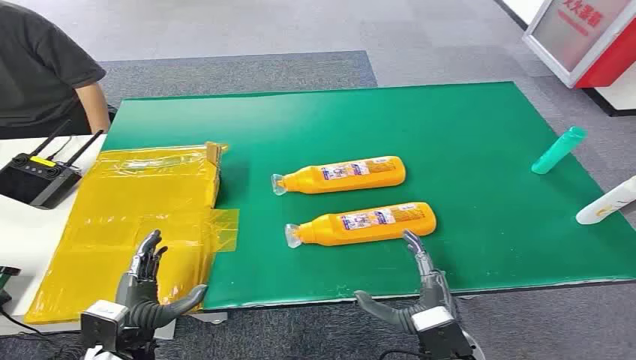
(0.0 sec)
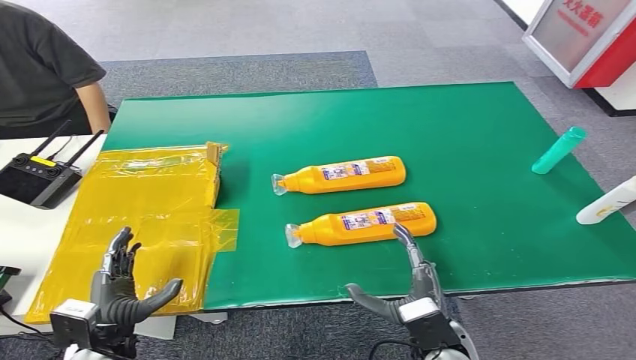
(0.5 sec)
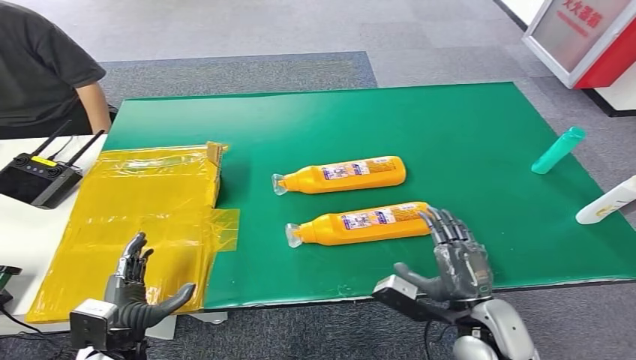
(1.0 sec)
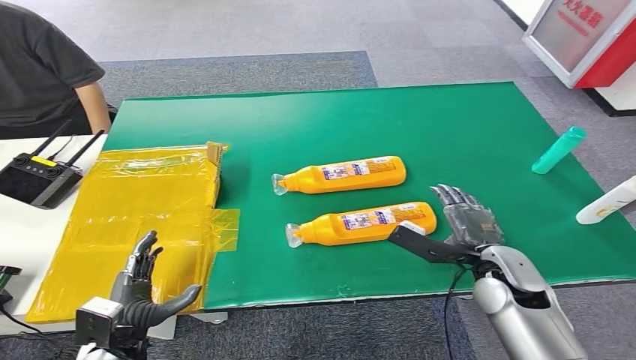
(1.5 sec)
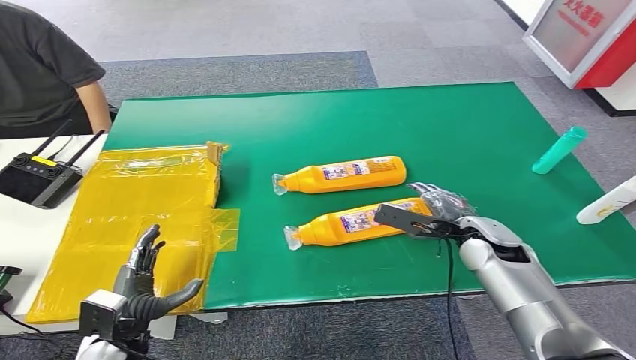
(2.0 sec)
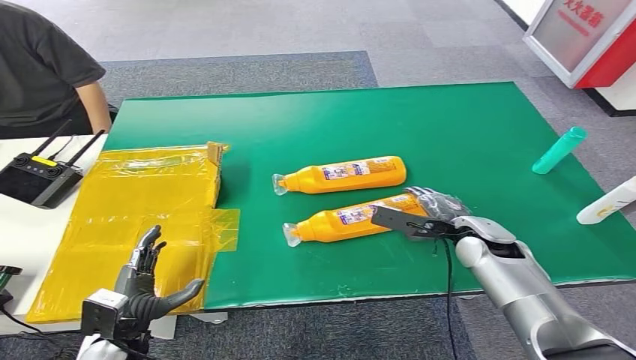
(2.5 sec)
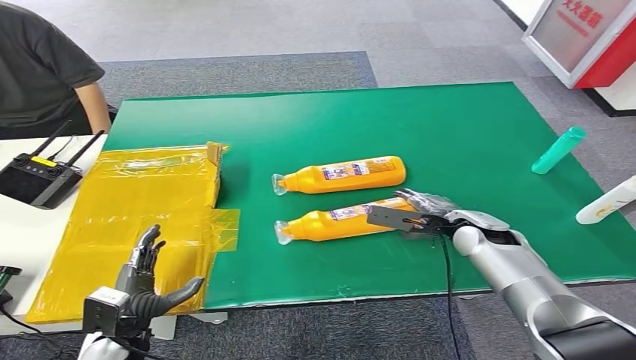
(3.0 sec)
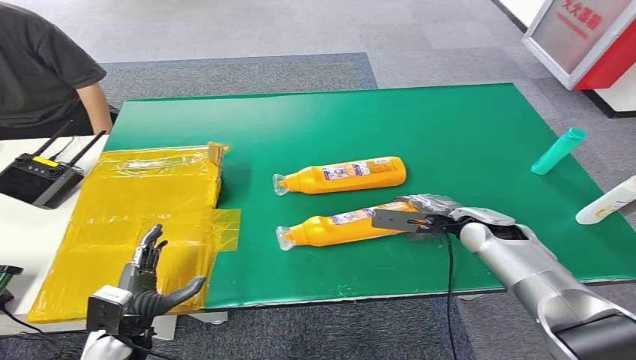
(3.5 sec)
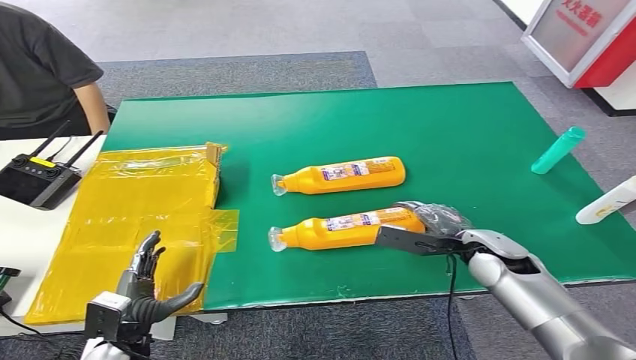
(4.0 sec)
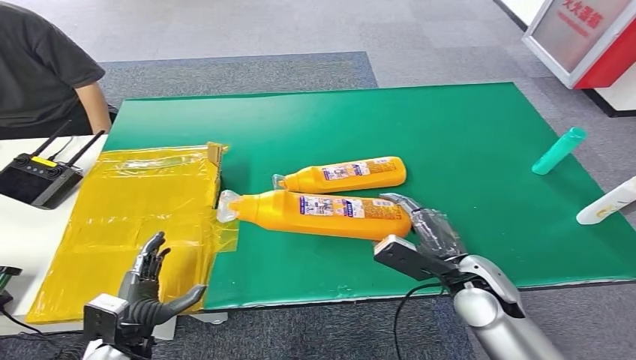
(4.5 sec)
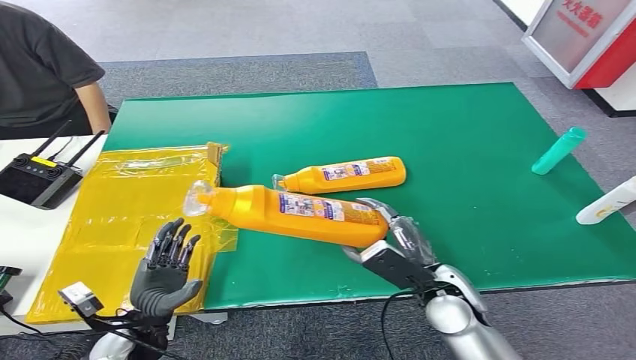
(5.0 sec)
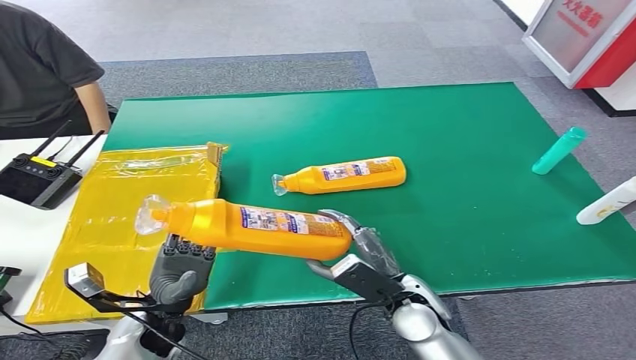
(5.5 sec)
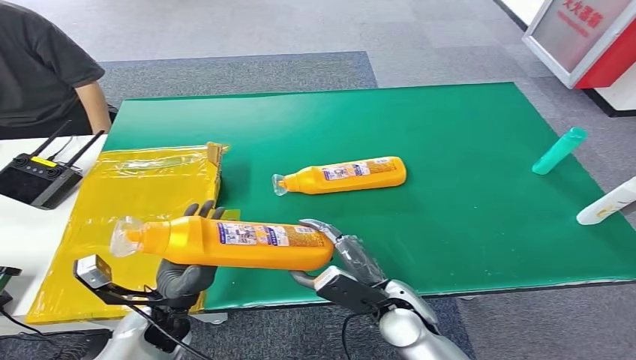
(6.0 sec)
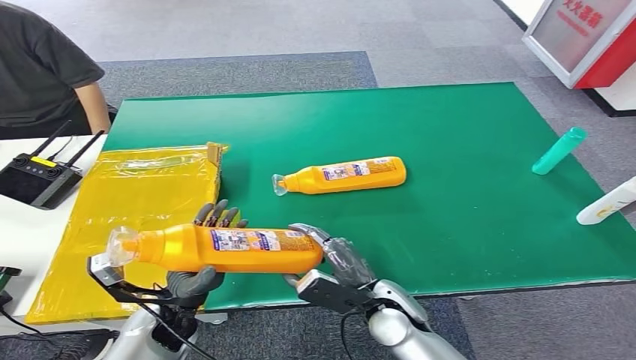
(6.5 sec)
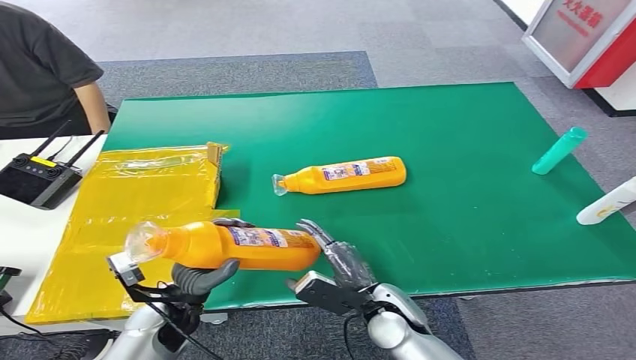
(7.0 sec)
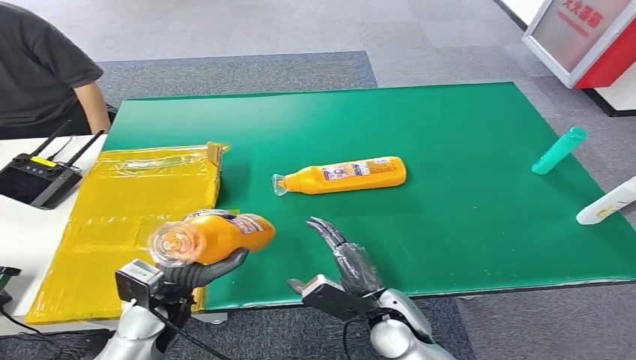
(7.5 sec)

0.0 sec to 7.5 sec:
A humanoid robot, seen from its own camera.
Step, 0.0 sec to 5.0 sec: Pick up the bottle from the table.
Step, 5.5 sec to 7.5 sec: Turn the bottle to the front side.
2.0 sec to 4.0 sec: There are only small adjustments of the hands.
4.0 sec to 5.5 sec: The right hand travels to the left and backward by some 15 cm. The left hand shifts some 5 cm to the right.

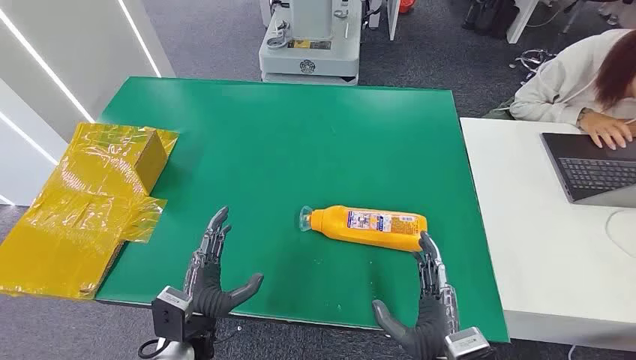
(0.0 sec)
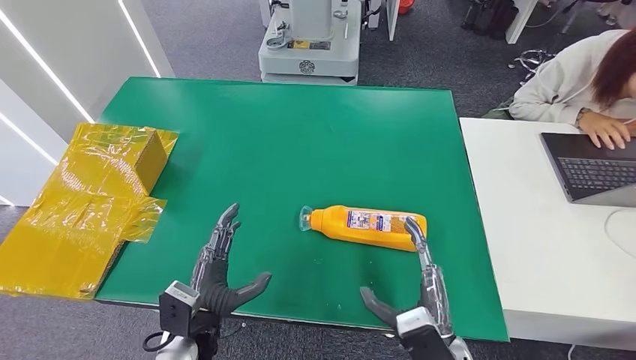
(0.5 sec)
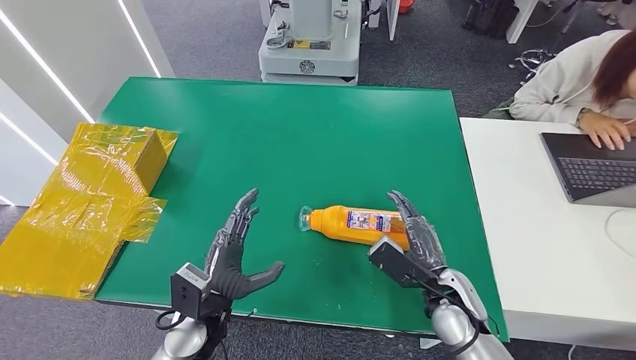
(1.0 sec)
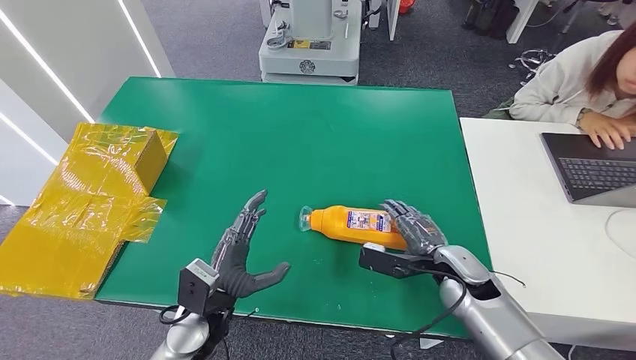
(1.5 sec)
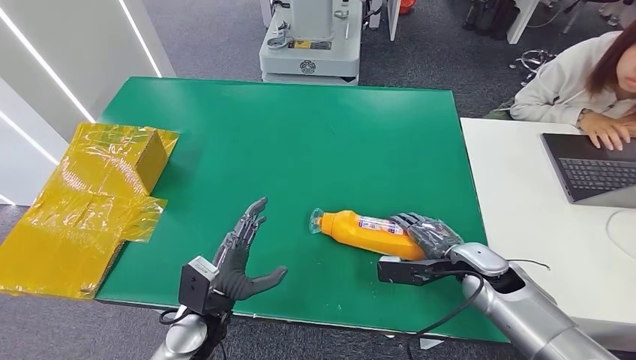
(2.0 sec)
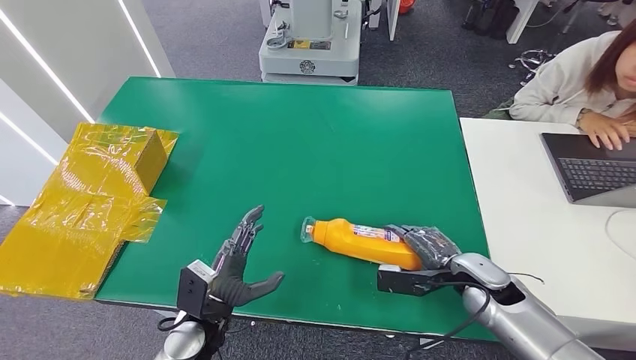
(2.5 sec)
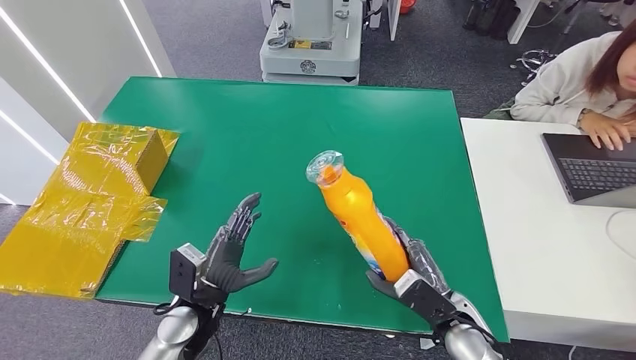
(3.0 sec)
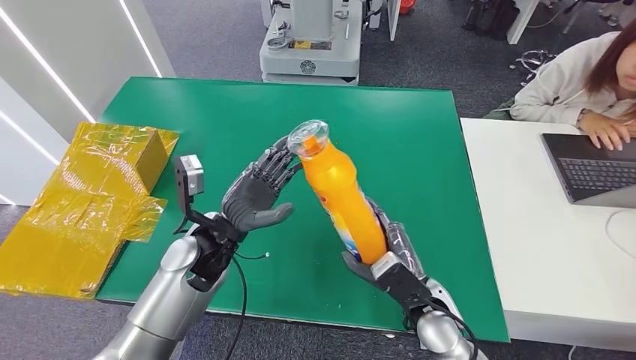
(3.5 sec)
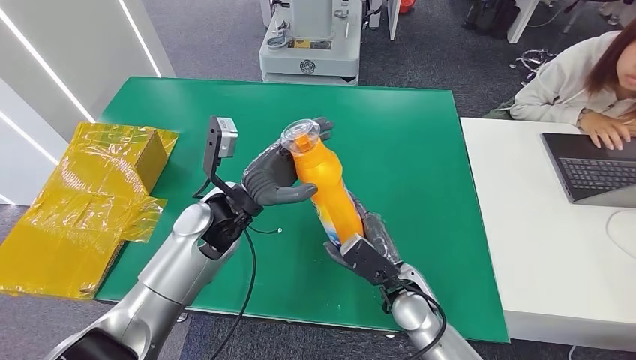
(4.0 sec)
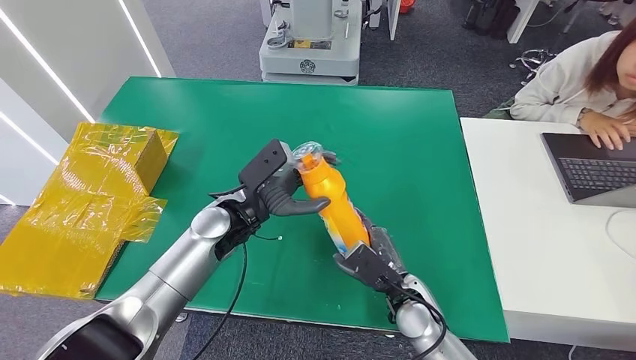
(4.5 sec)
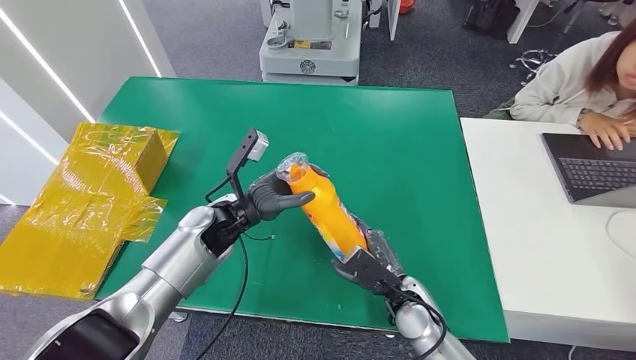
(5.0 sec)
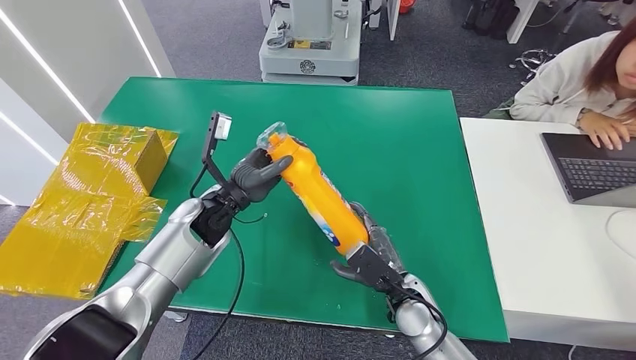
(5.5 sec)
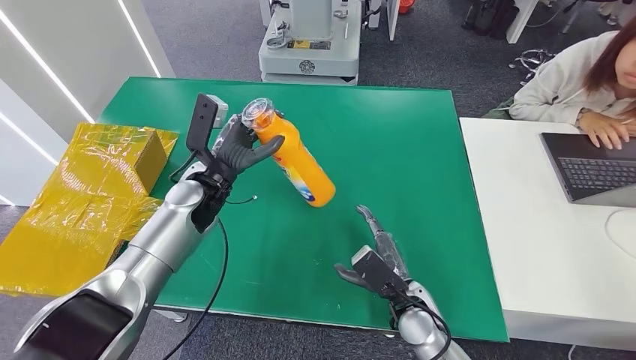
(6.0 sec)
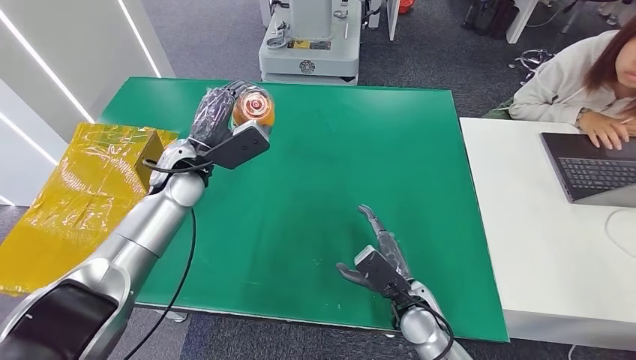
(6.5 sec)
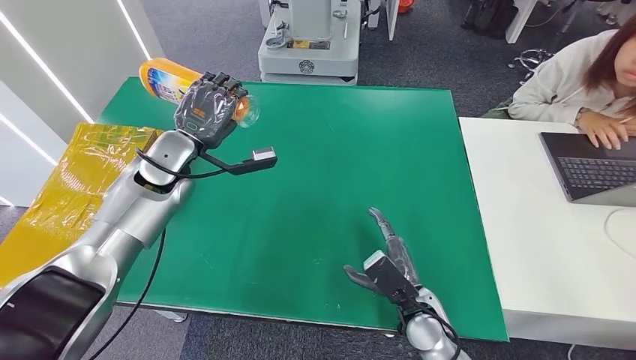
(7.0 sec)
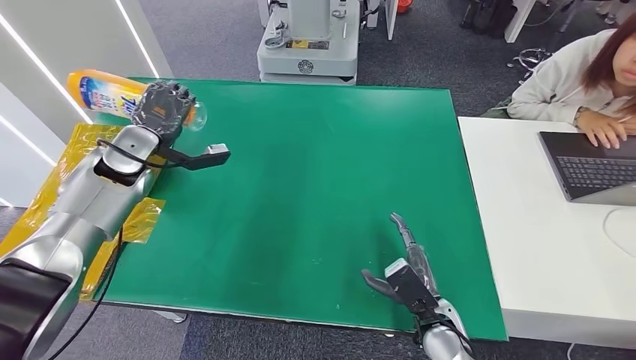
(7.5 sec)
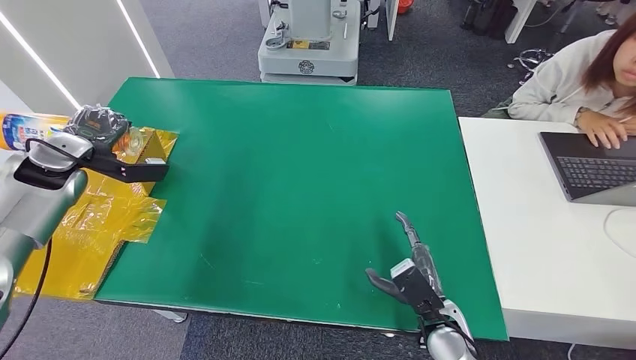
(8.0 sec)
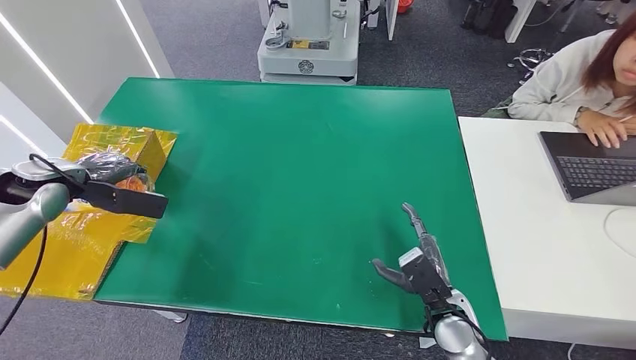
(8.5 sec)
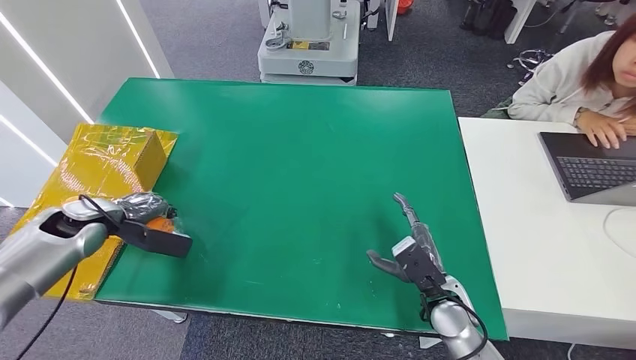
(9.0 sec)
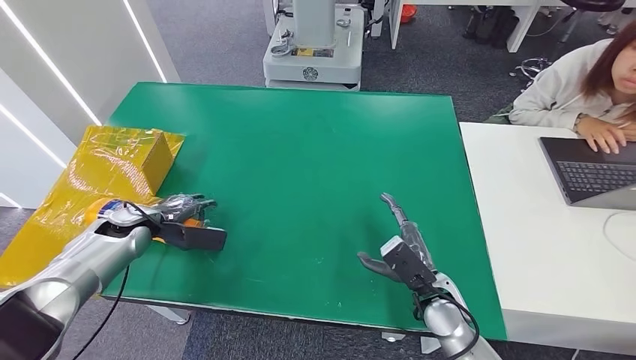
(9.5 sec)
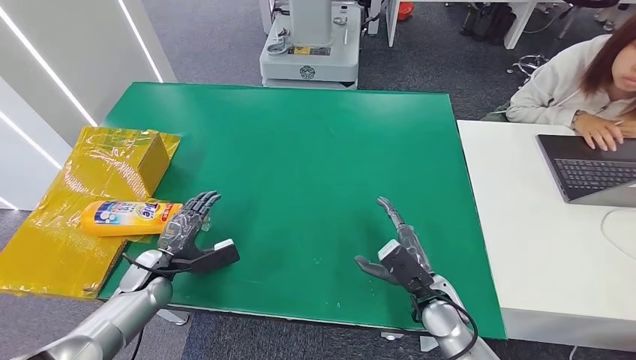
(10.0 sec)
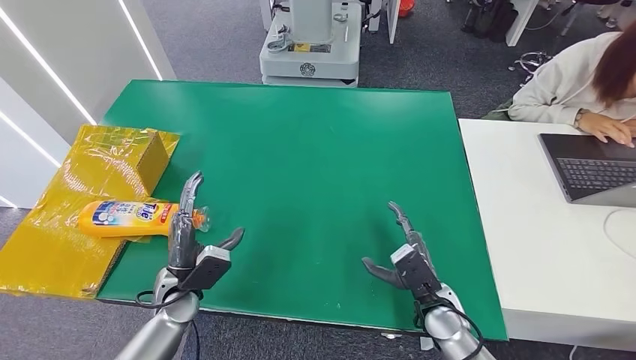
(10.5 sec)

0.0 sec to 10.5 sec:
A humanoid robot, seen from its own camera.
Step, 0.0 sec to 3.0 sec: Pick up the bottle from the table.
Step, 3.5 sec to 10.5 sec: Turn the bottle to the front side.
2.0 sec to 4.0 sec: The left hand moves upward and forward, about 20 cm. Meanwhile the right hand is displaced to the left by roughly 15 cm.
4.0 sec to 6.5 sec: The left hand is displaced to the left and forward by about 10 cm.
8.5 sec to 10.5 sec: The left hand moves to the right, downward and backward, roughly 30 cm.
